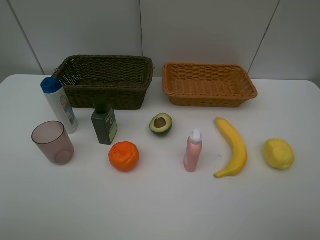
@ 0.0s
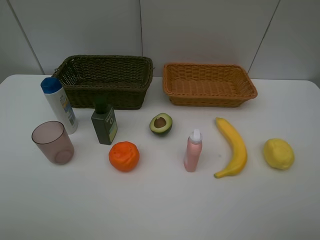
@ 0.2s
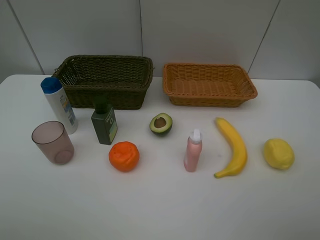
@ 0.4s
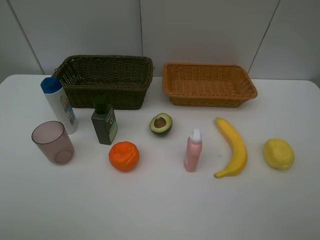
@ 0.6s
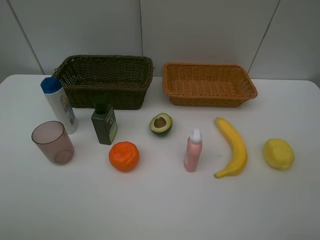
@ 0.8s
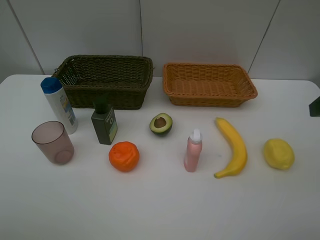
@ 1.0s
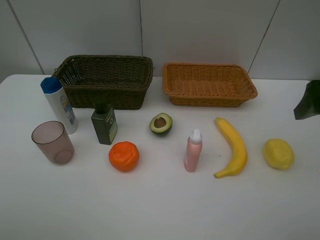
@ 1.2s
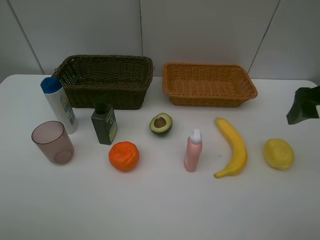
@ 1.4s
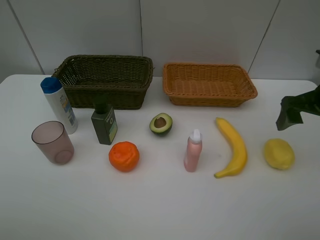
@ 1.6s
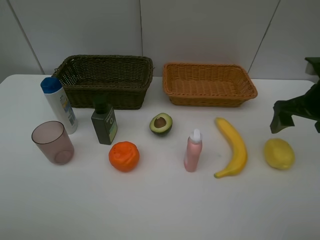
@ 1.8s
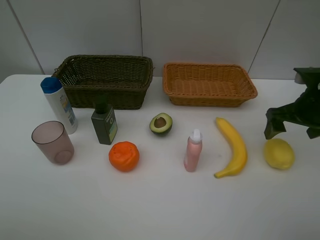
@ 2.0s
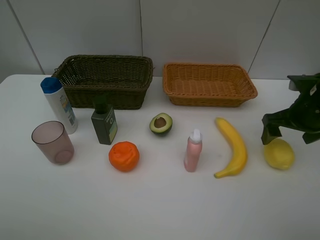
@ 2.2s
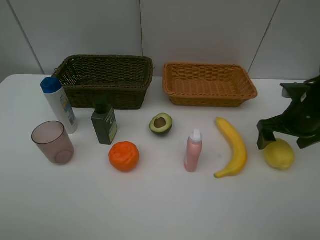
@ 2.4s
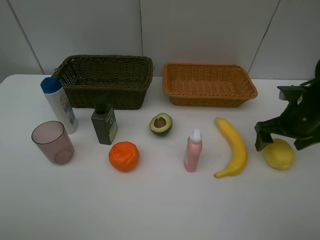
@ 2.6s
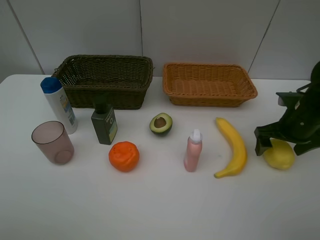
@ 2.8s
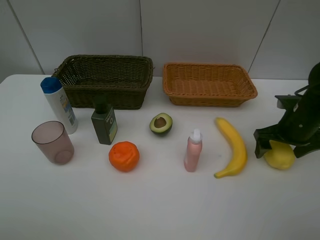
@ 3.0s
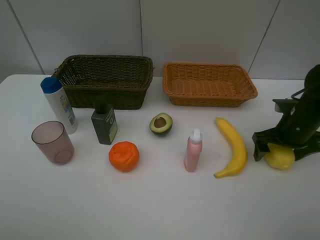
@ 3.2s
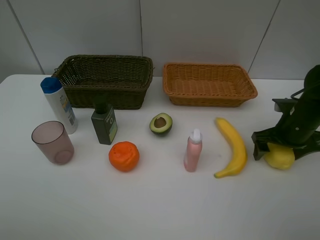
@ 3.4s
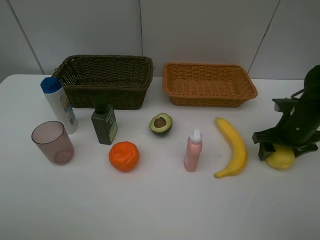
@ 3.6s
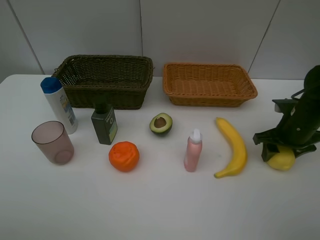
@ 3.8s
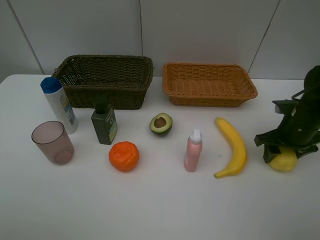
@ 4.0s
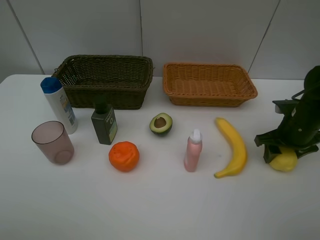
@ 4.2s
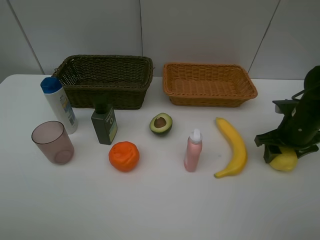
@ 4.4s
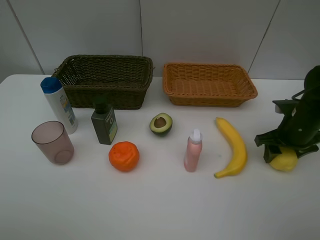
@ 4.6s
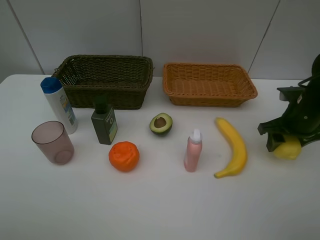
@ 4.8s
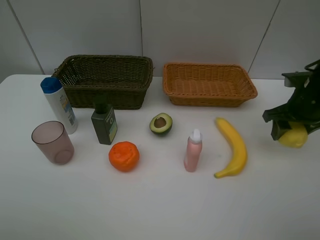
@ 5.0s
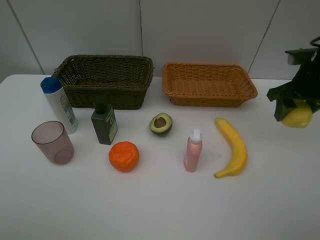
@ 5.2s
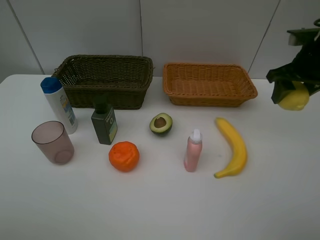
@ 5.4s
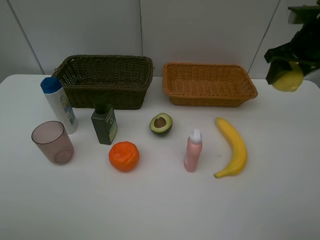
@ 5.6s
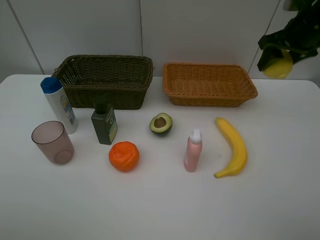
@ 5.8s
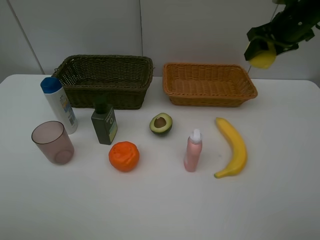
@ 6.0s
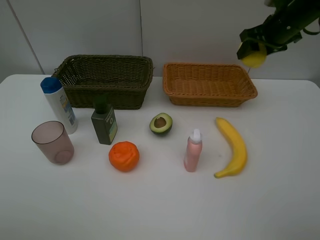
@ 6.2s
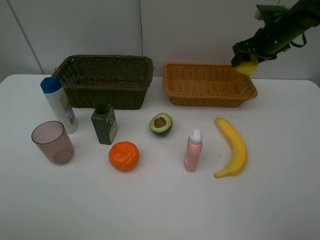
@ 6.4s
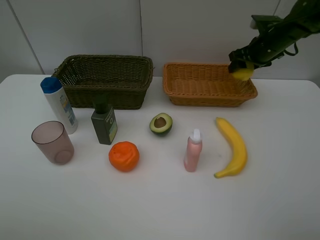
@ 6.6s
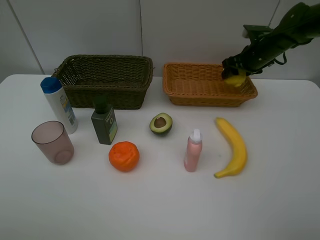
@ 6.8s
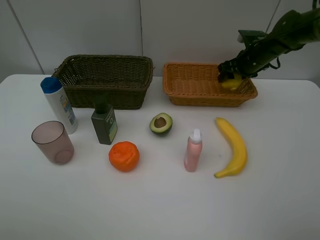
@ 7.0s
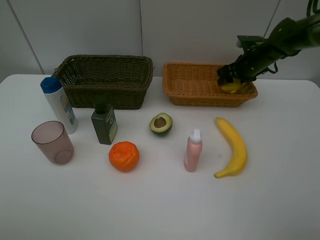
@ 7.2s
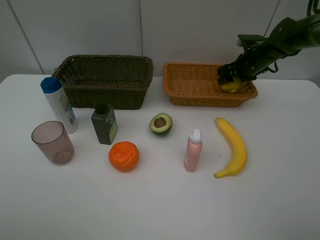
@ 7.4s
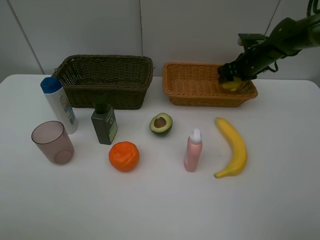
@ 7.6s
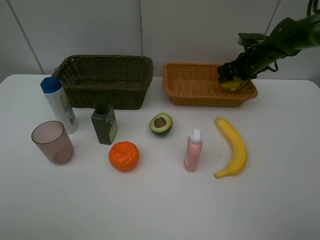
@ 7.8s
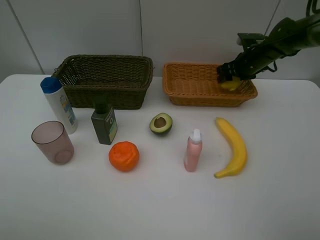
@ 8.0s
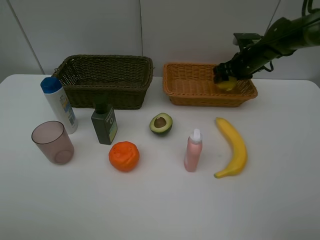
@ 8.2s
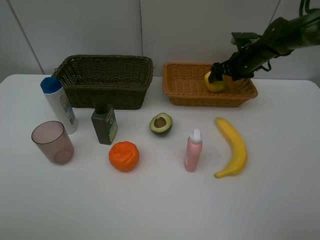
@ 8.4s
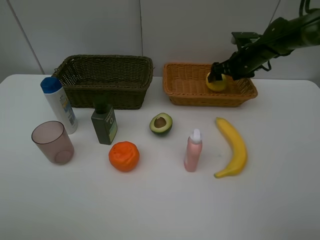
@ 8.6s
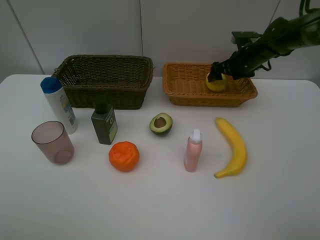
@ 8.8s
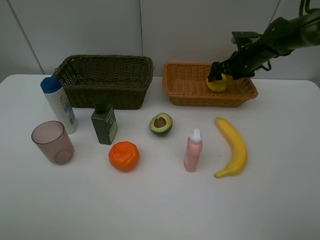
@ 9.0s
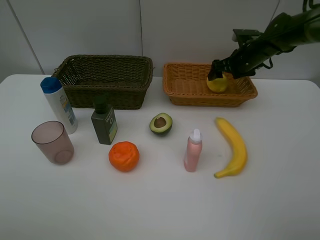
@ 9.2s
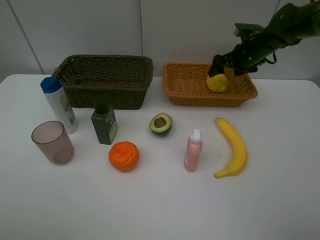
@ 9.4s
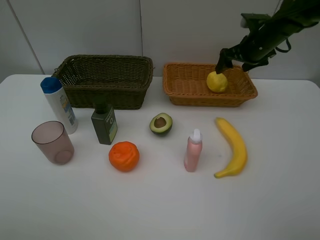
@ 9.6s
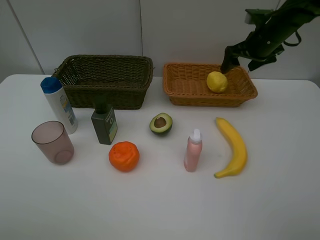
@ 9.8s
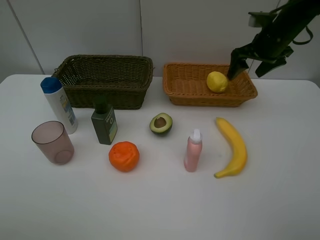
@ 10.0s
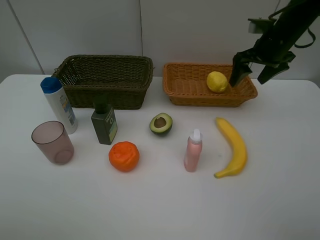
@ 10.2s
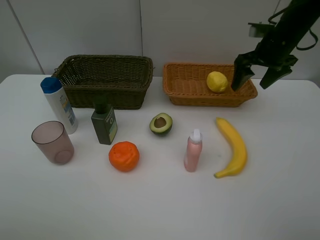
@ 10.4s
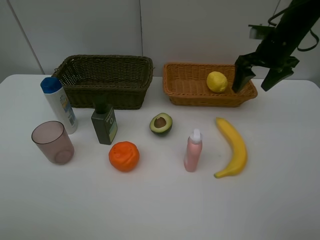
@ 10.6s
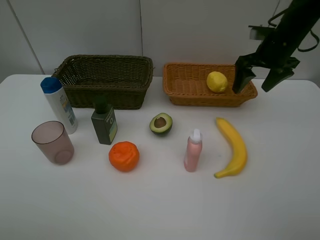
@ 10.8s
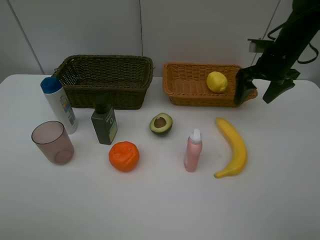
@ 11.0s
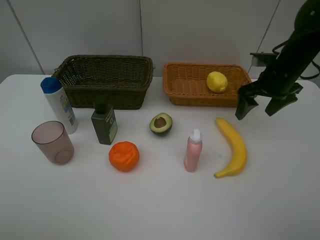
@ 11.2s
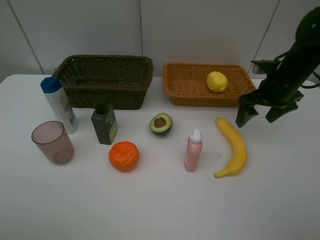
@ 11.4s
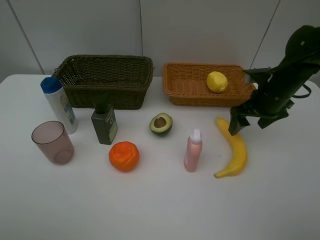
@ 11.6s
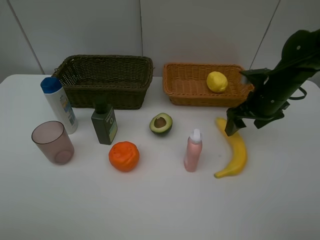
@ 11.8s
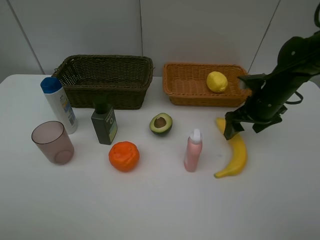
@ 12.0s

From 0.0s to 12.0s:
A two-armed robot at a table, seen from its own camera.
Task of the whole recording: Place multiple objects separately in different baskets.
Step, from 0.0s to 4.6s: Pick up the lemon with right gripper.
Step, from 4.8s to 9.4s: Place the lemon in the light basket with right gripper.
From 0.0s to 1.6s: The right gripper goes about 25 cm forward.
From 1.6s to 3.0s: The right gripper is displaced downward by approximately 10 cm.
From 3.0s to 4.4s: The right gripper closes its fingers.
From 4.4s to 6.0s: The right gripper shifts approximately 20 cm upward and forward.
From 6.0s to 7.6s: The right gripper travels downward and forward by roughly 15 cm.
From 7.6s to 9.0s: The right gripper opens its fingers.
From 9.0s to 10.4s: The right gripper heads upward and backward, covering approximately 10 cm.
From 10.4s to 12.0s: The right gripper moves downward and backward, some 10 cm.

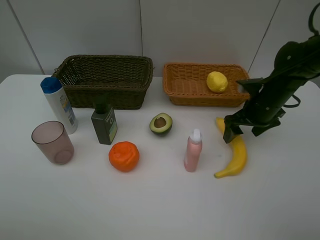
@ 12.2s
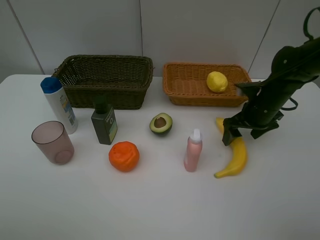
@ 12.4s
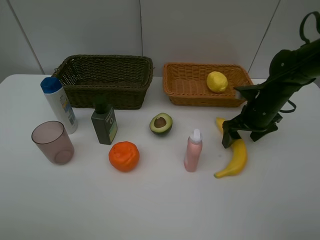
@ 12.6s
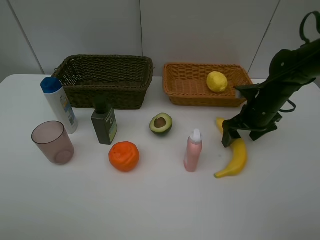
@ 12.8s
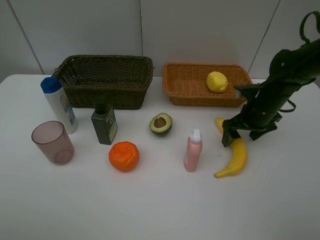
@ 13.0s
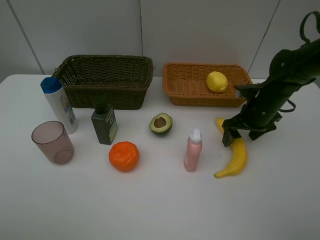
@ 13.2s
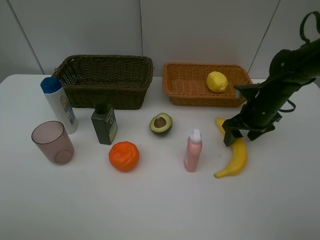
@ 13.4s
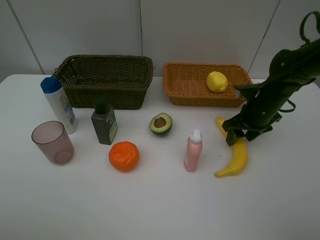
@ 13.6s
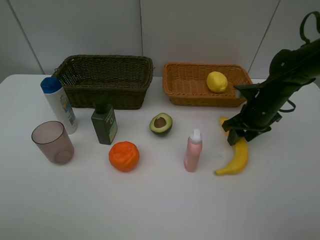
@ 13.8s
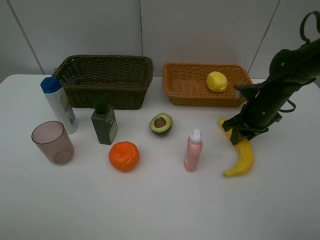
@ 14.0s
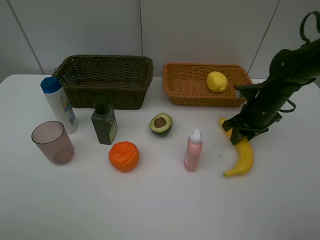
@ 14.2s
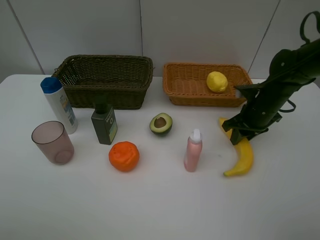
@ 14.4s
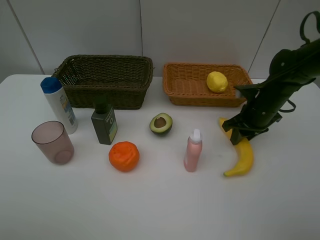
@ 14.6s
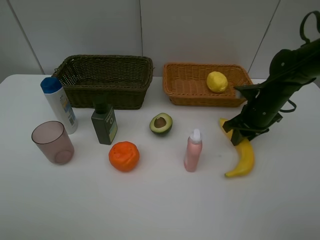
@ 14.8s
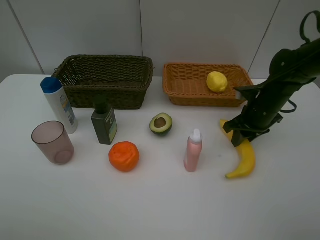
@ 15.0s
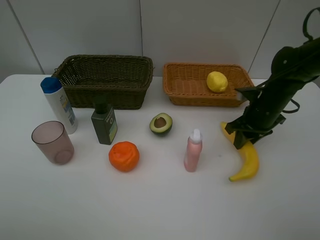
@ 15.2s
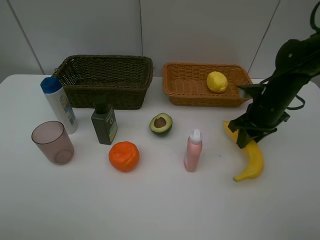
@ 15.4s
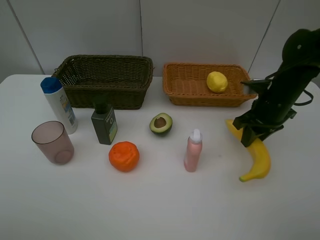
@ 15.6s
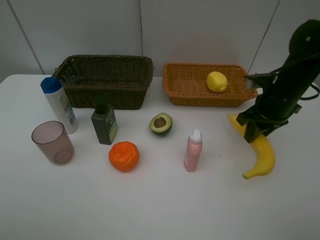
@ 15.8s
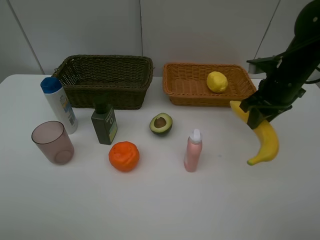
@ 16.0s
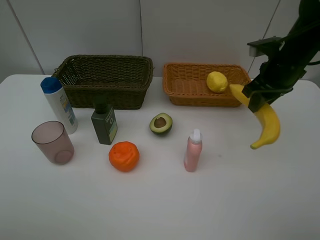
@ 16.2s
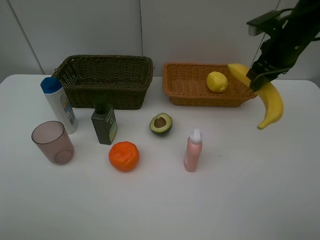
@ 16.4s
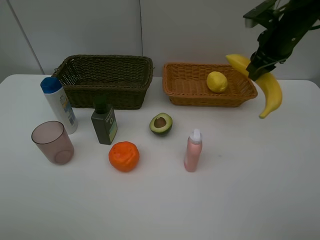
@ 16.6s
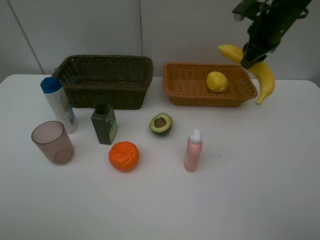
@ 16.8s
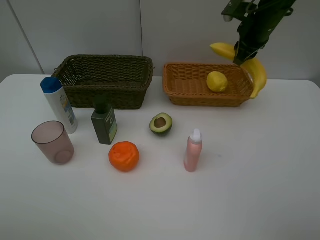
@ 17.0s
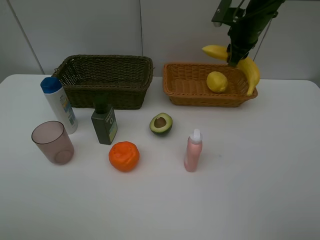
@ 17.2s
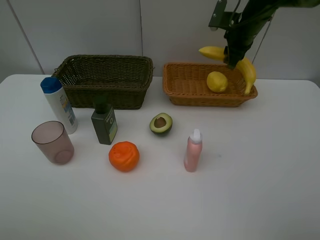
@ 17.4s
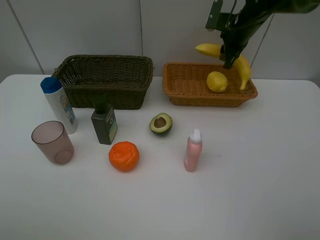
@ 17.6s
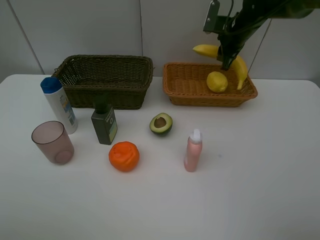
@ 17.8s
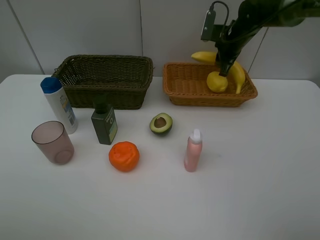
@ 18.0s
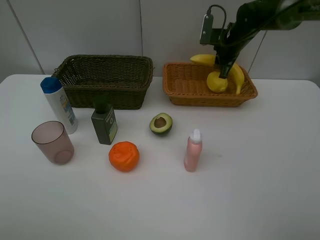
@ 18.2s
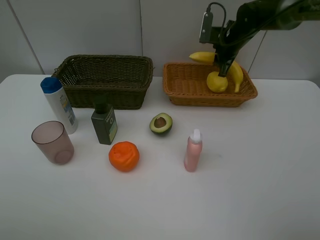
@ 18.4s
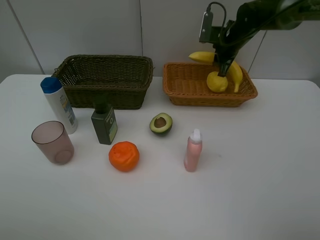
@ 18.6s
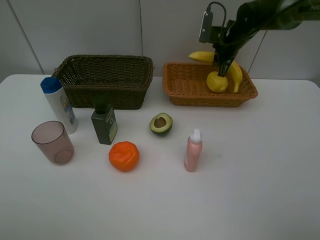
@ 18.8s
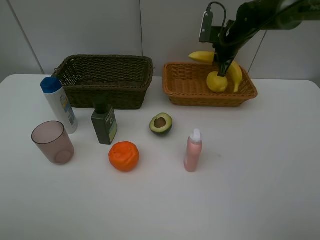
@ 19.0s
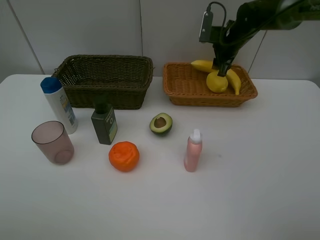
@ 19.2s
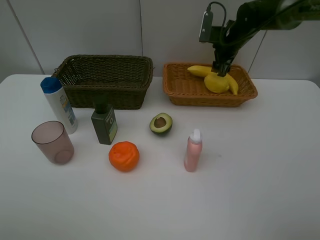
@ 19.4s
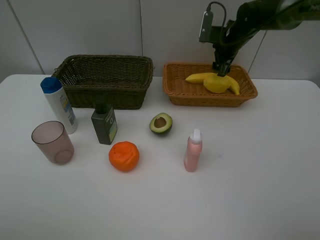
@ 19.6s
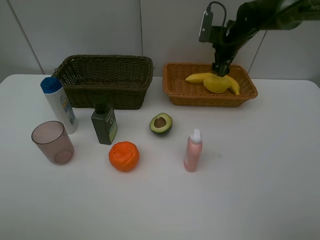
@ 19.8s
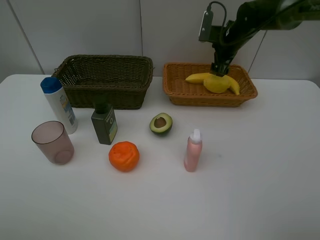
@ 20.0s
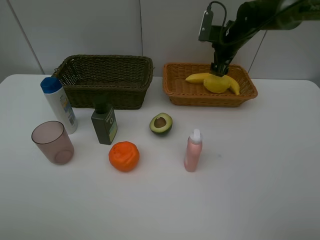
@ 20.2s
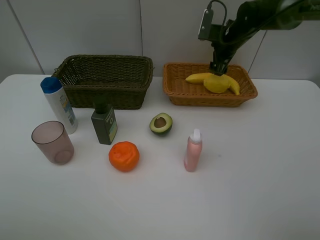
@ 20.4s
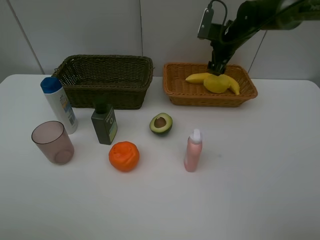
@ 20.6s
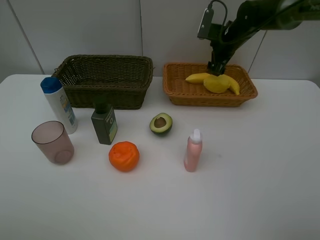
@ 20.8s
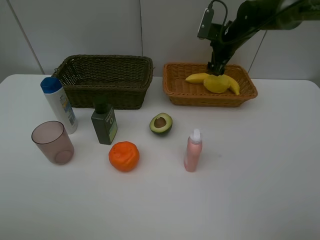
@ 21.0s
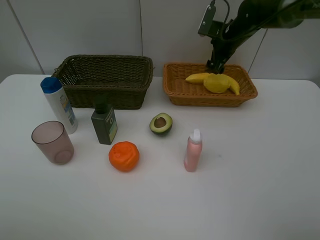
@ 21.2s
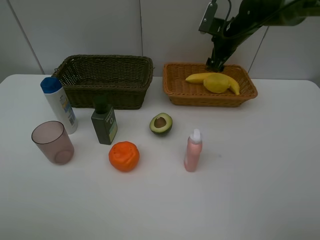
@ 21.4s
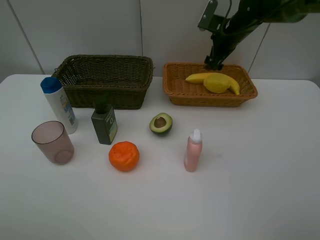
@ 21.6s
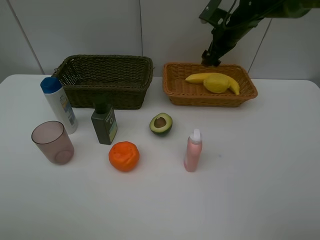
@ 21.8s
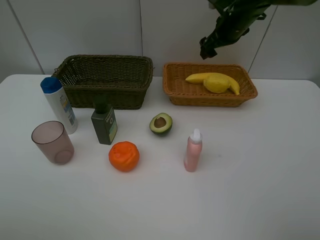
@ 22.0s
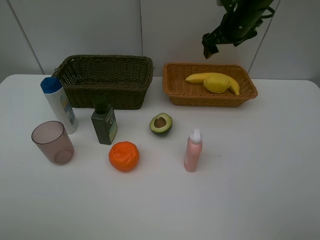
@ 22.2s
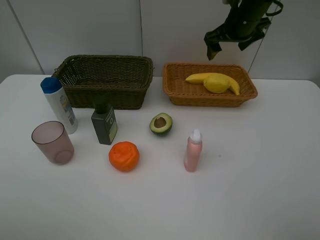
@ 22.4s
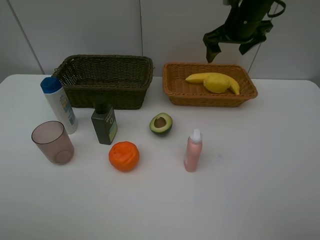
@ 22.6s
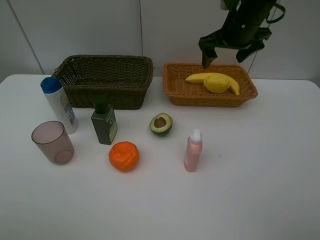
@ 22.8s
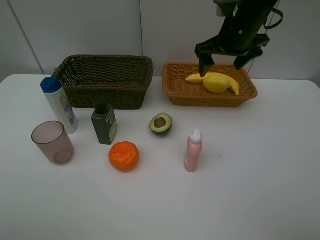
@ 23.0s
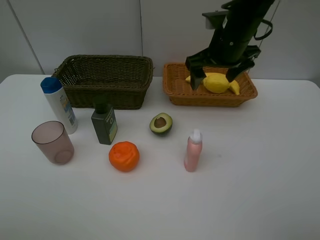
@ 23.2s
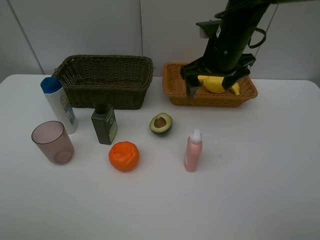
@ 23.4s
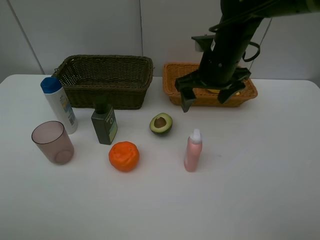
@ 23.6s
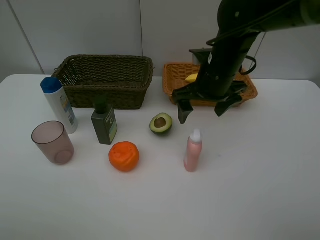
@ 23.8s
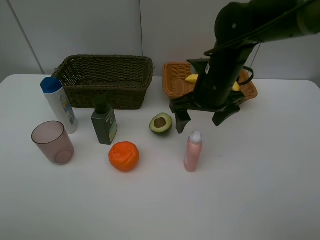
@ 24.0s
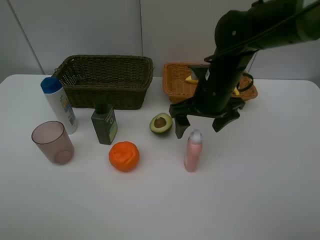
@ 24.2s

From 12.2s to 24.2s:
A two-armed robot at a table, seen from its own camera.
Task of the whole recording: Place multiple objects separately in different baskets.
Step, from 12.2s to 15.4s: Pick up banana with right gripper.
Step, from 15.6s to 19.8s: Place the banana in the light basket with right gripper.
From 12.2s to 13.8s: The right gripper closes up.
From 13.8s to 15.2s: Both grippers stay put.
From 15.2s to 16.6s: The right gripper is displaced upward and forward by approximately 15 cm.
From 16.6s to 18.2s: The right gripper is displaced forward and downward by some 15 cm.
From 18.2s to 19.8s: The right gripper opens its fingers.
From 19.8s to 21.2s: The grippers make only small movements.
From 21.2s to 22.6s: The right gripper heads backward and upward, covering roughly 10 cm.
From 22.6s to 24.2s: The right gripper is displaced backward, downward and to the left by roughly 15 cm.
